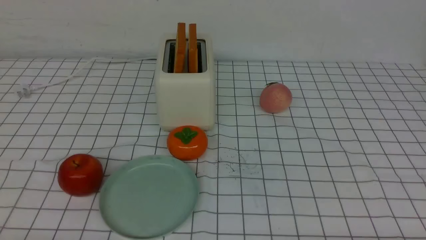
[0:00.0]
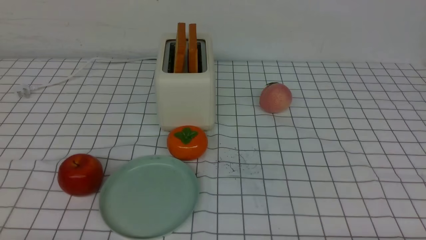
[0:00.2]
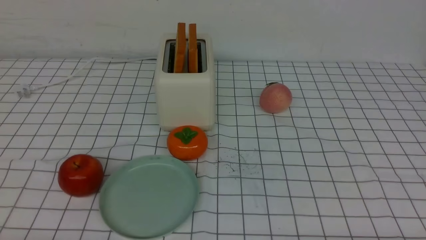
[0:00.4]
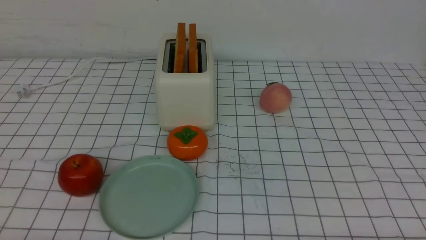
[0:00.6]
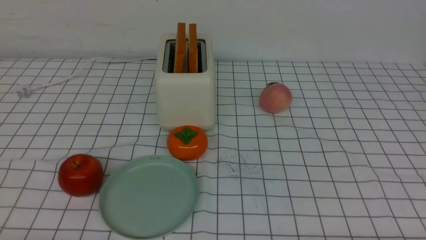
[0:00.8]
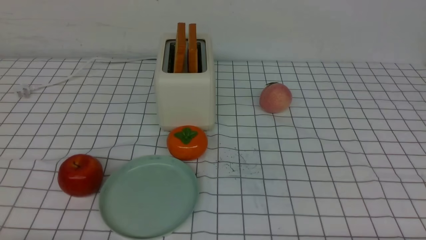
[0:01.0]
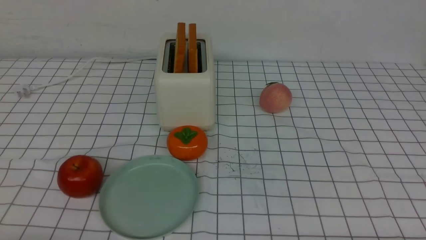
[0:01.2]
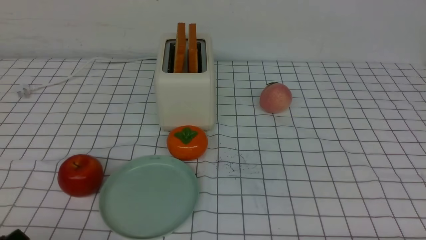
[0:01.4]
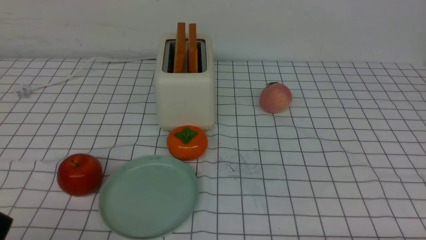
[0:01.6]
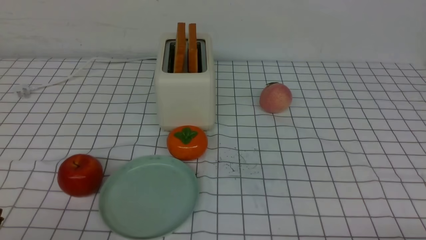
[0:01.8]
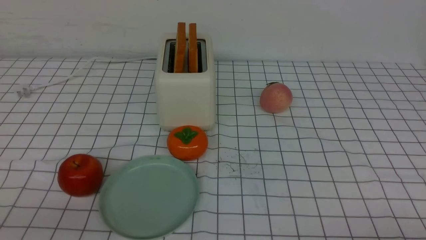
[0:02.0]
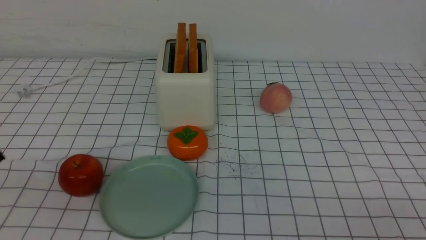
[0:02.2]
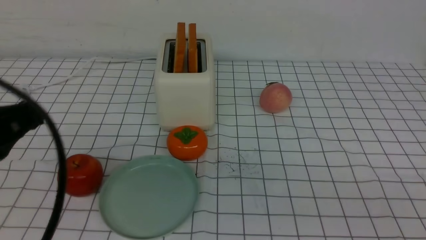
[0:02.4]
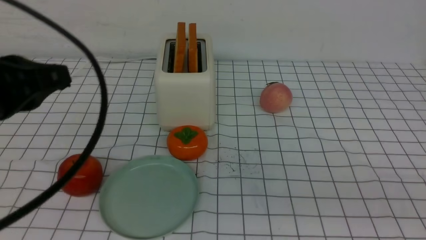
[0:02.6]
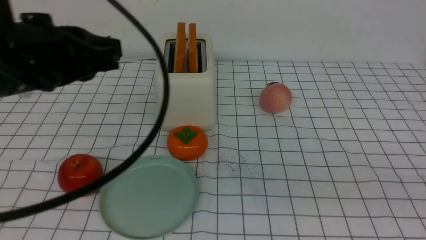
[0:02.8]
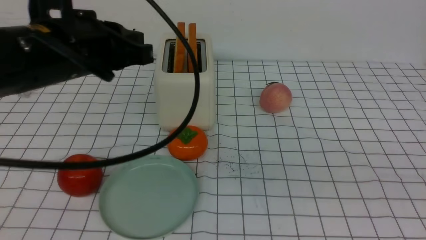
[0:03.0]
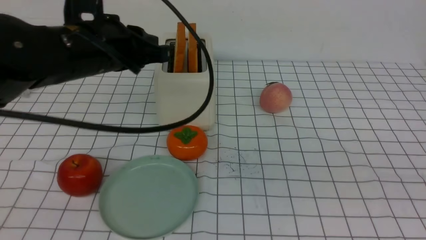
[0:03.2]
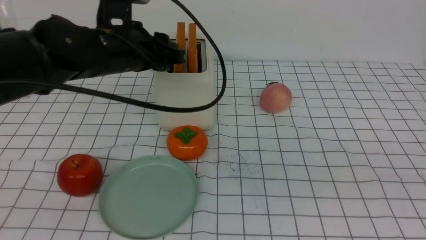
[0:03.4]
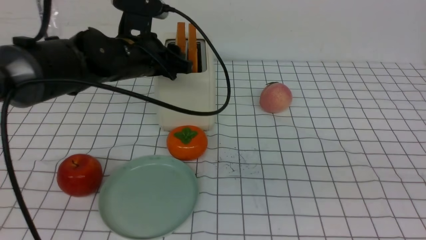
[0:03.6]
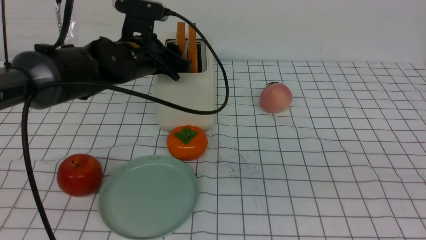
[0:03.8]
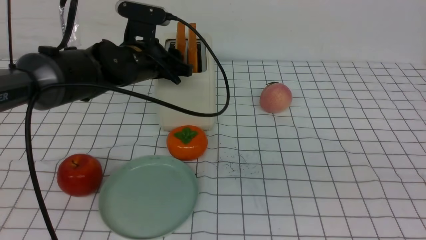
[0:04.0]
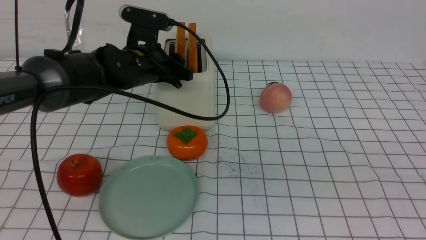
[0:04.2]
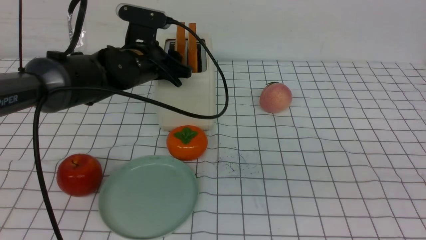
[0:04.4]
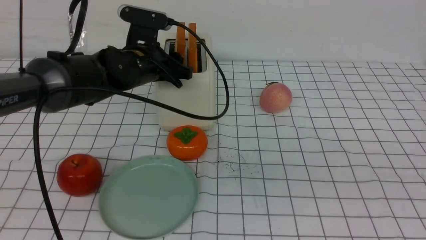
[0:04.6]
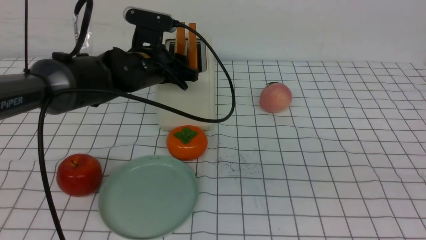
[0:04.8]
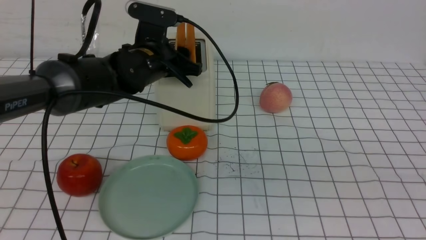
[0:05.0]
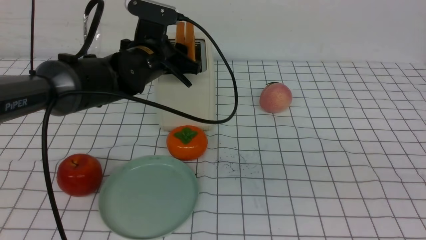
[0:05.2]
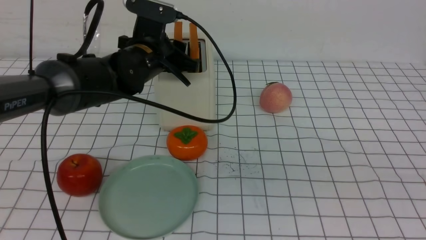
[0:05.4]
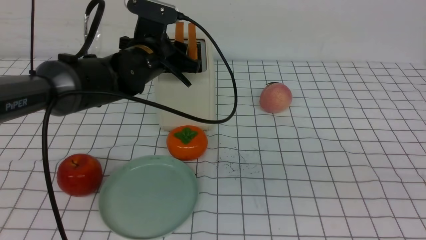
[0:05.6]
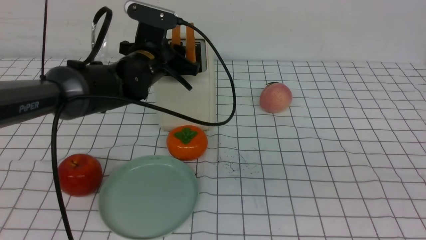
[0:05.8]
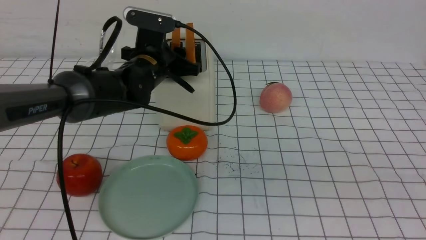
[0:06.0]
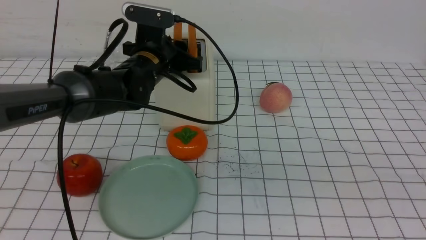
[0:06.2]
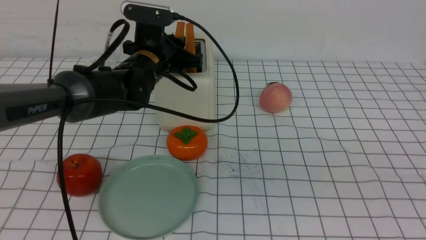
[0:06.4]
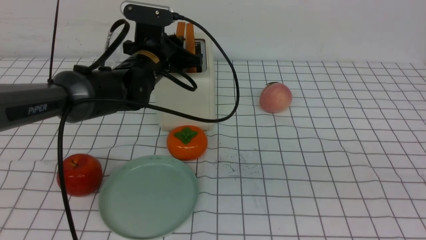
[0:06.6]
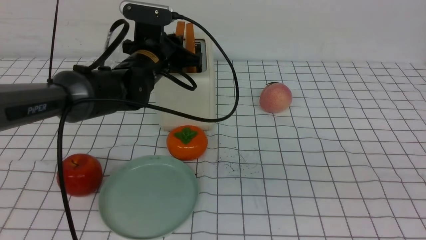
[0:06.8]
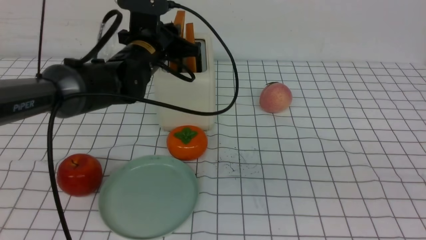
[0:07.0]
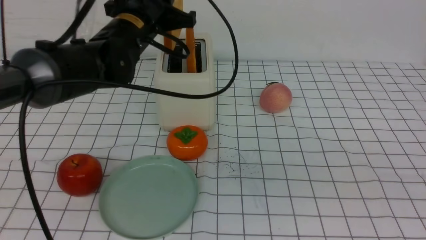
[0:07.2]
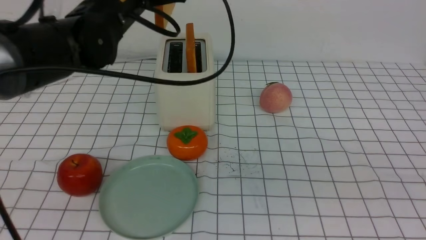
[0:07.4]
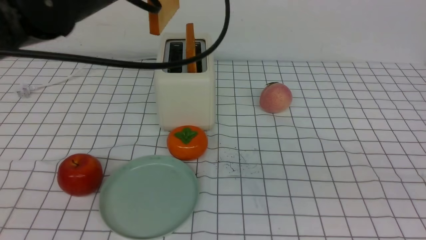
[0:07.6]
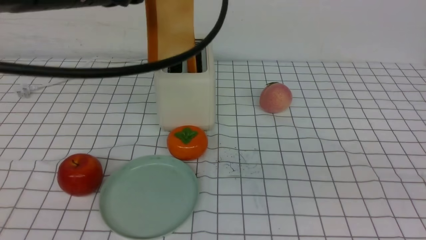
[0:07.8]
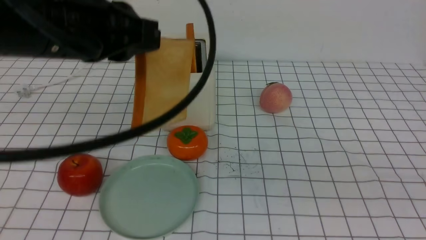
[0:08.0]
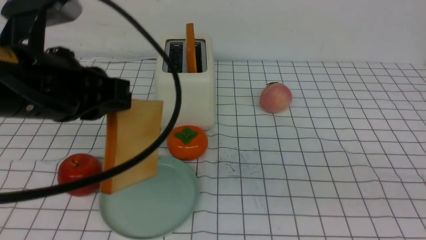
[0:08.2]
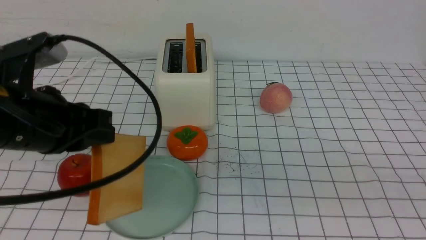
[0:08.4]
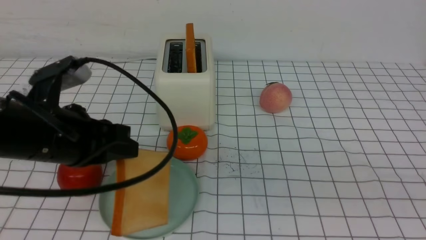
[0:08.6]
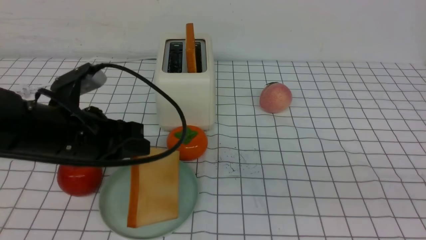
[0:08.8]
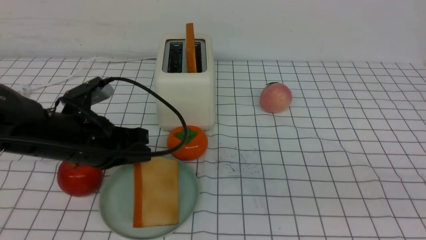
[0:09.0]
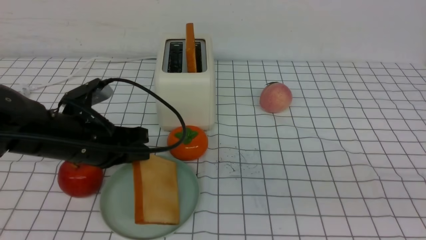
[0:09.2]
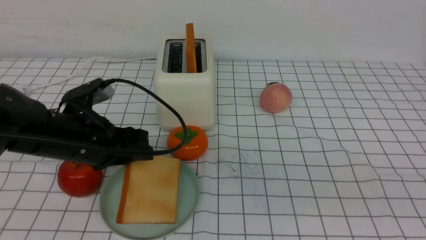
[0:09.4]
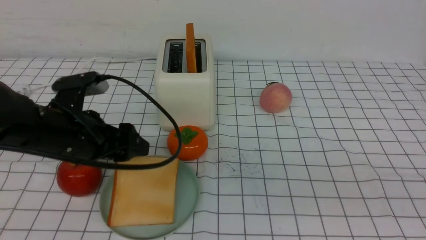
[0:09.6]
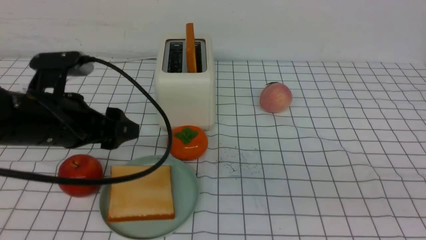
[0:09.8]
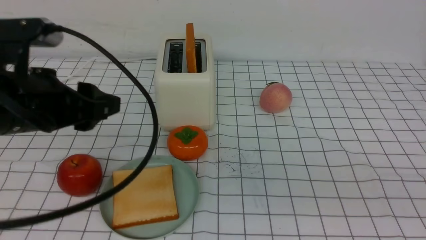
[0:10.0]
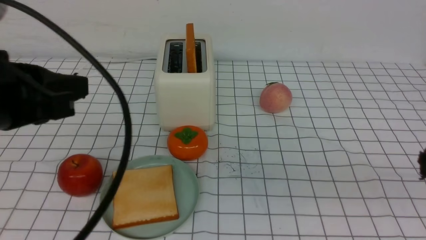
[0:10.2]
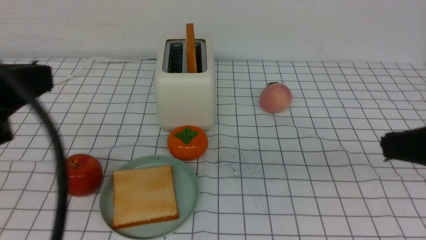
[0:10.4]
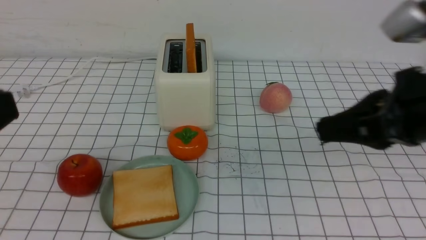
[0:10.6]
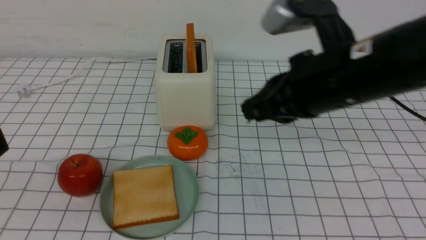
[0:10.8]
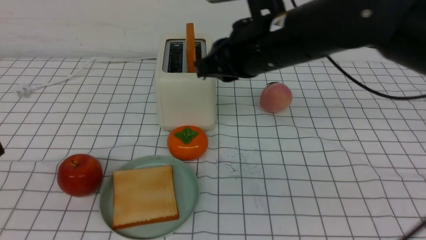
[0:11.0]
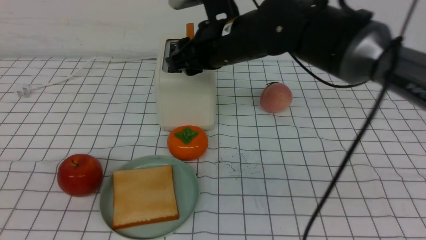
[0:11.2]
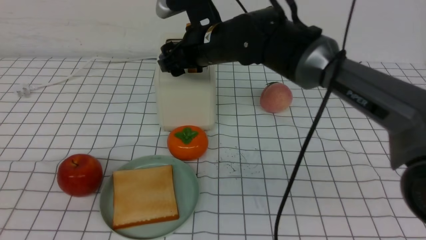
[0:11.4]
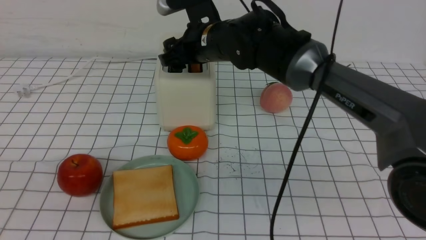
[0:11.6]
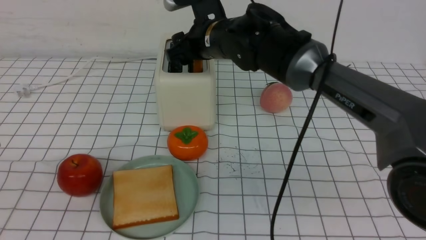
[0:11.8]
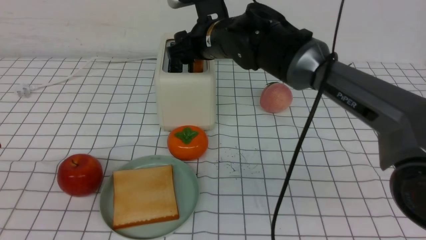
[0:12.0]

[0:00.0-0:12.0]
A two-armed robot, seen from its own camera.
Task of the whole recording: take toasted bread from bread machine on white checkered table place on plate.
Step, 0:00.0 to 0:07.0: use the left arm to take out a slice of bread.
Step, 0:07.2 to 0:09.8: use the left arm to put a slice of bread into the empty plate.
0:01.6 to 0:03.0: The left gripper moves forward, upward and to the right, roughly 30 cm, and closes its fingers. The right gripper travels upward by some 20 cm, and closes its fingers.
0:03.0 to 0:04.4: The left gripper travels forward and downward by some 15 cm, and opens its fingers.
0:04.4 to 0:06.0: The grippers stay close to where they were, moving slightly.
0:06.0 to 0:07.6: The left gripper is displaced upward and backward by about 20 cm, and closes its fingers.
0:07.6 to 0:09.0: The left gripper moves downward, about 20 cm.
0:09.0 to 0:10.4: The left gripper is displaced backward and upward by roughly 20 cm, and opens, then closes again, while the right gripper travels forward by about 10 cm.
0:10.4 to 0:12.0: The left gripper heads backward, covering some 5 cm, while the right gripper travels forward and to the left by approximately 35 cm, and opens.

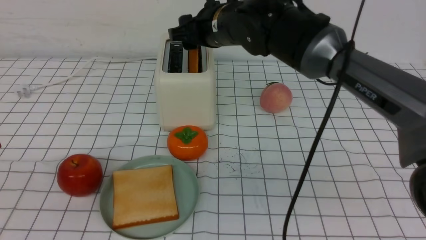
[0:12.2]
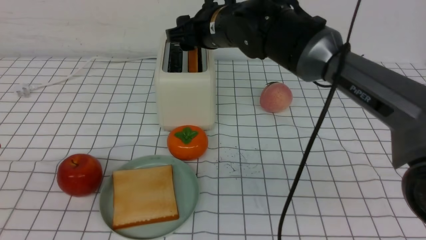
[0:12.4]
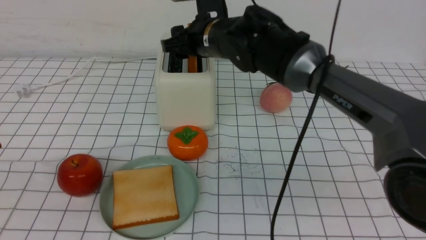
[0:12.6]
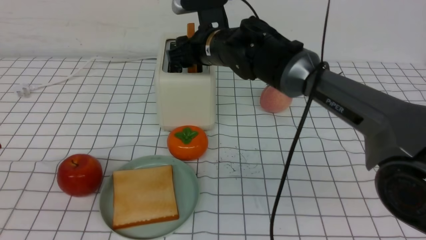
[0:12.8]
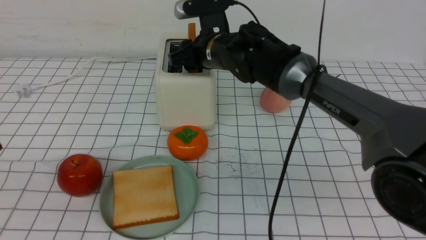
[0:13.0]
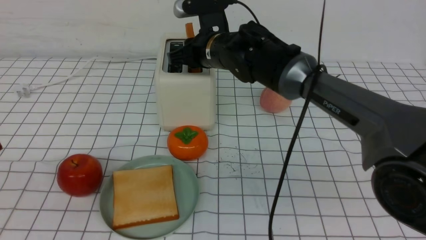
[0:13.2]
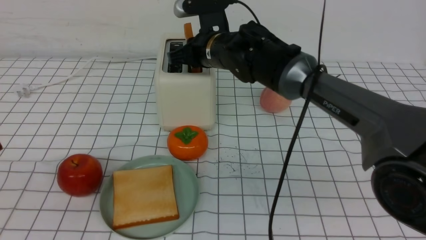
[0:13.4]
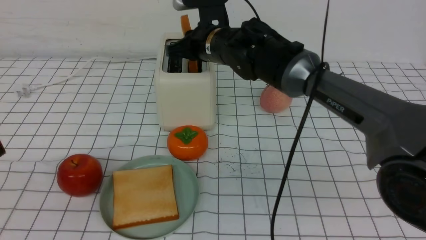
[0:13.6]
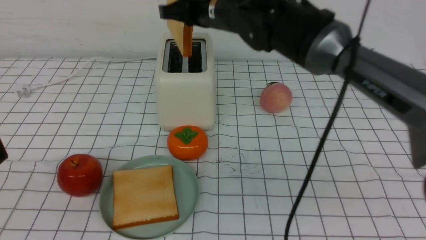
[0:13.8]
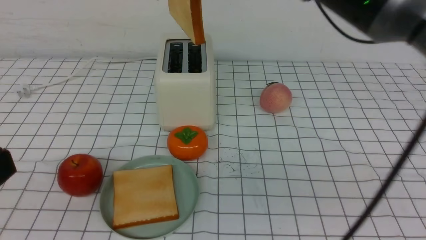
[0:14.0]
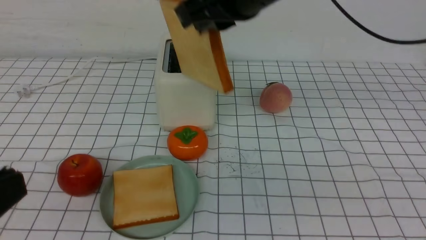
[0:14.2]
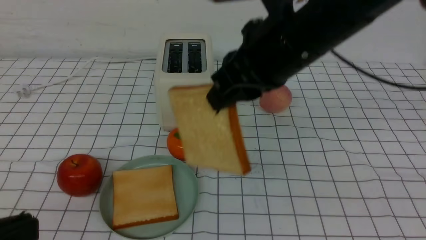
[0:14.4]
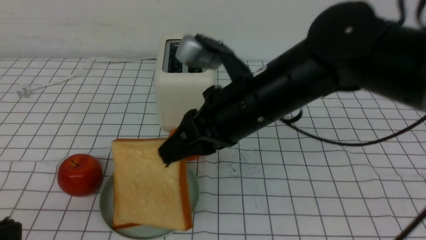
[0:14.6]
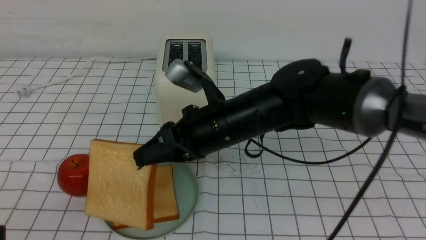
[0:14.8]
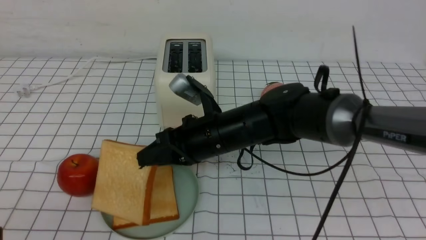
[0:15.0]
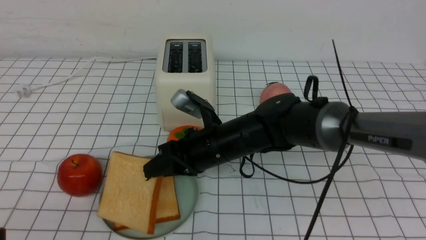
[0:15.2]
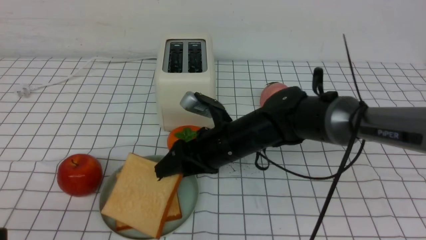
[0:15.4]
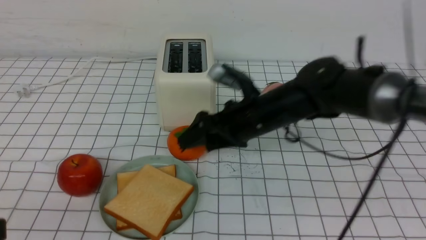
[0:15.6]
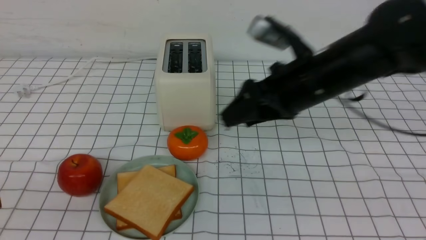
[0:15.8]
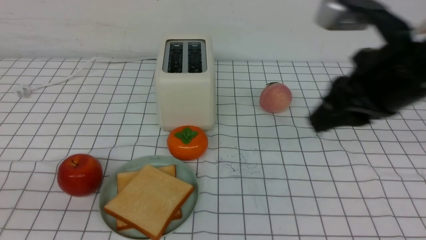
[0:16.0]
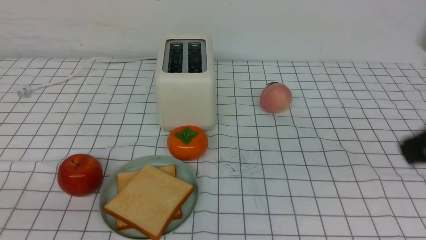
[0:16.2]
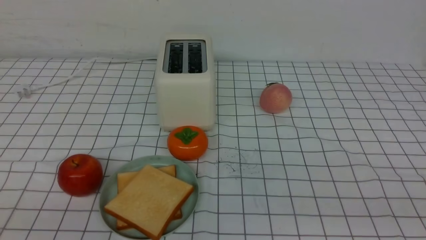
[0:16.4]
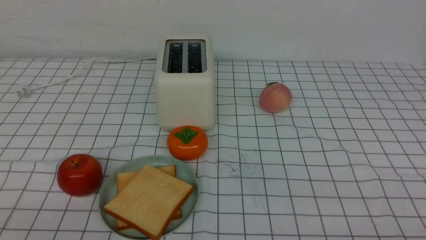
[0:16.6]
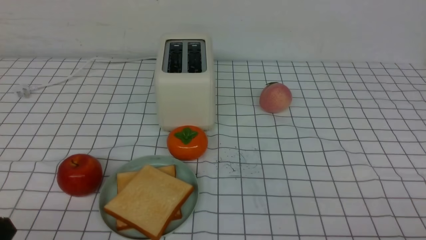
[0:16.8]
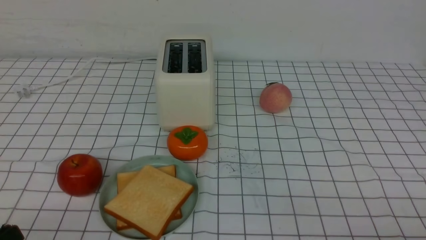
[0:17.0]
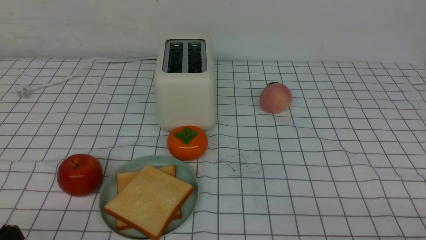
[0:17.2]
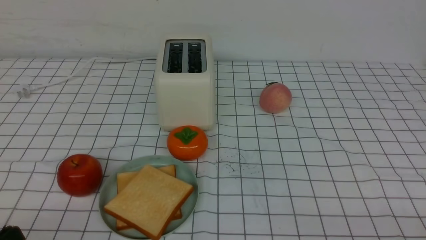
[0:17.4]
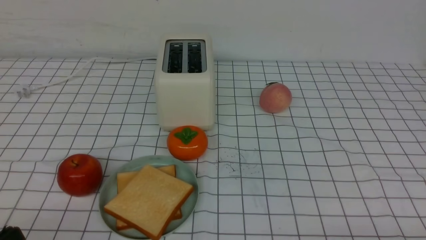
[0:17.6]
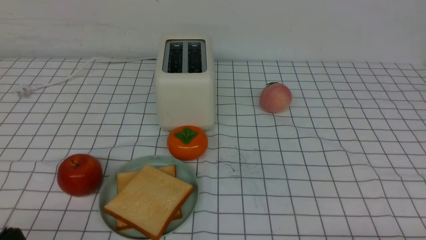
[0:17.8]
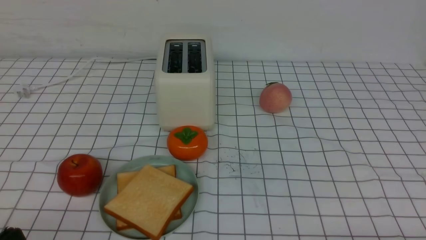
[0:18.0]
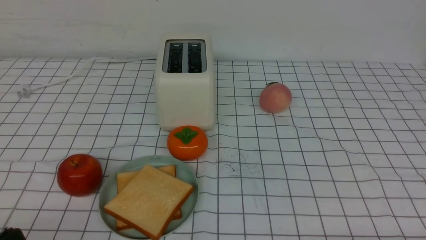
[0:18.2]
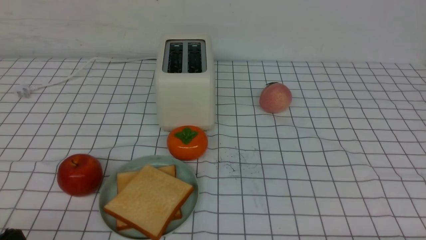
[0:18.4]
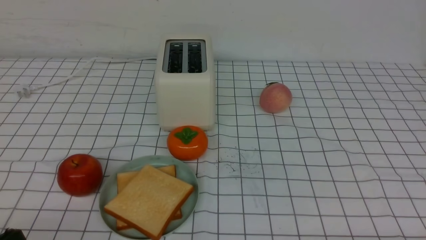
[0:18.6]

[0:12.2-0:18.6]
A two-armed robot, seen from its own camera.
Task of the whole recording: take toasted bread from bread machine on white checkered table place on plate.
Step, 0:14.0 to 0:15.8: use the right arm to put a slice of bread into the plate.
0:12.2 to 0:13.8: The right gripper shifts roughly 5 cm upward, and closes up.
0:13.8 to 0:15.4: The right gripper moves downward, approximately 15 cm, and opens.
0:15.4 to 0:17.0: The left gripper travels downward by approximately 10 cm; the right gripper moves backward and to the right, roughly 40 cm, and closes up.
